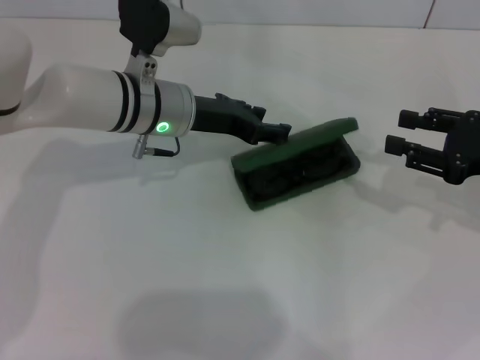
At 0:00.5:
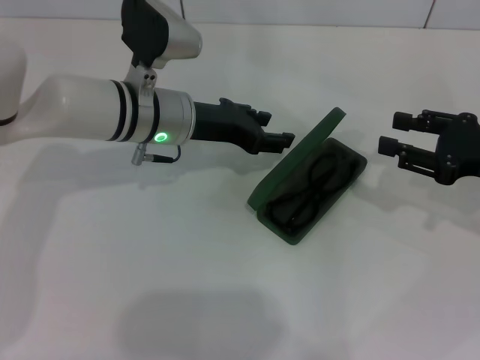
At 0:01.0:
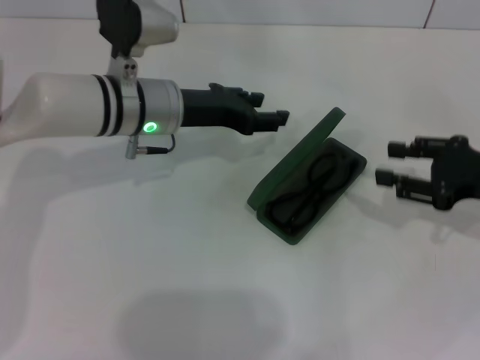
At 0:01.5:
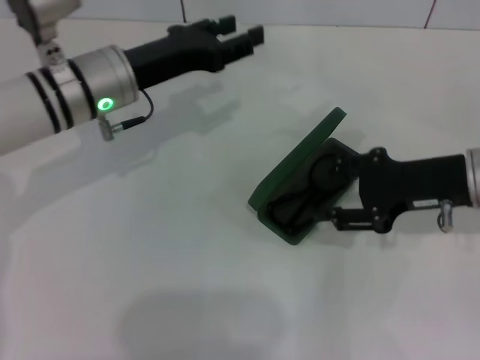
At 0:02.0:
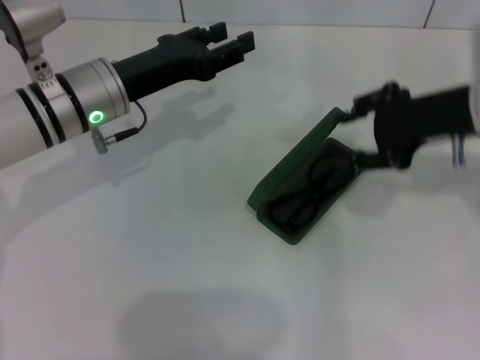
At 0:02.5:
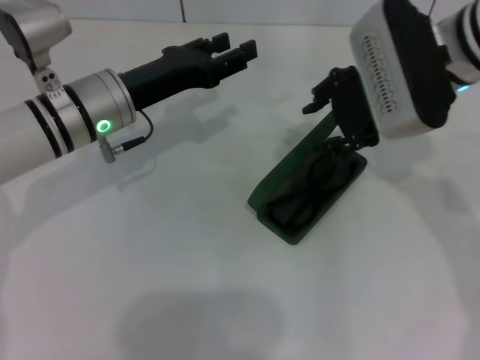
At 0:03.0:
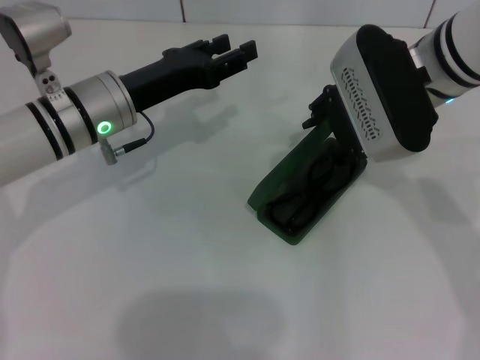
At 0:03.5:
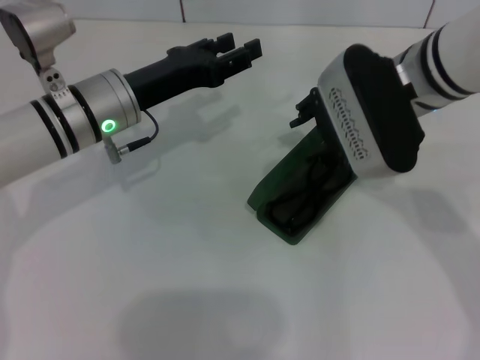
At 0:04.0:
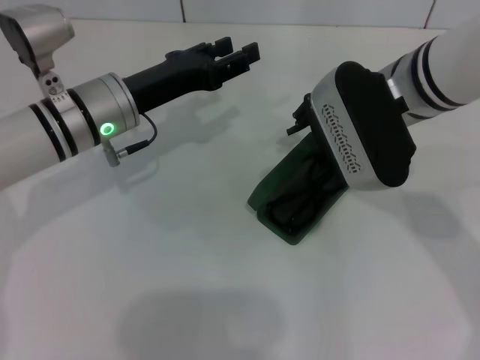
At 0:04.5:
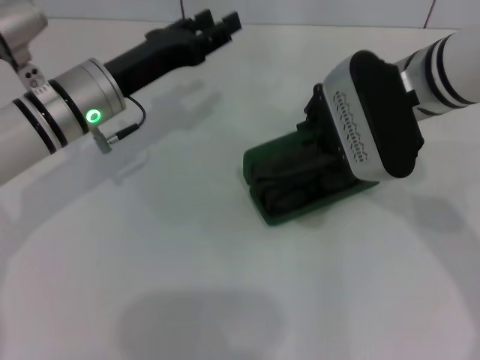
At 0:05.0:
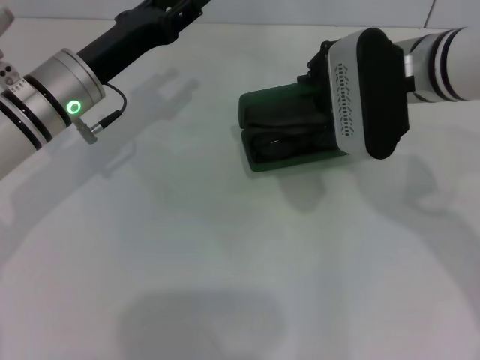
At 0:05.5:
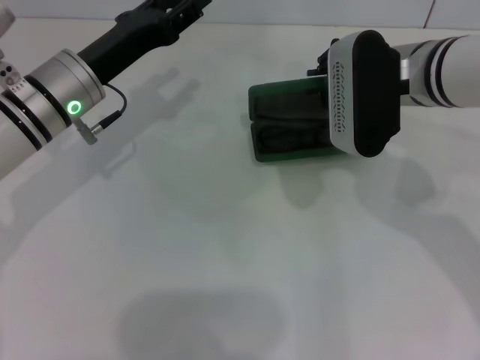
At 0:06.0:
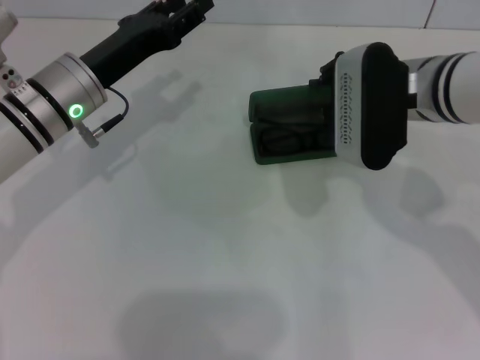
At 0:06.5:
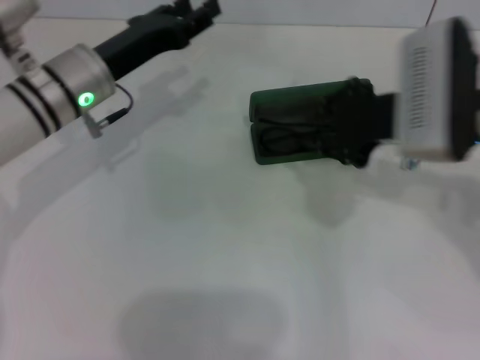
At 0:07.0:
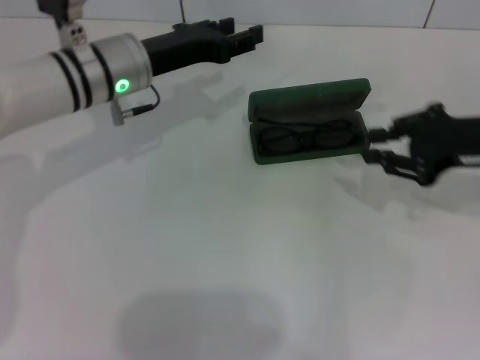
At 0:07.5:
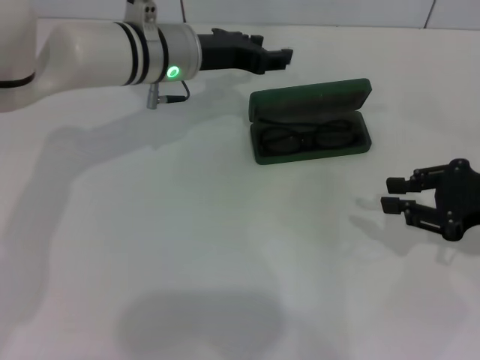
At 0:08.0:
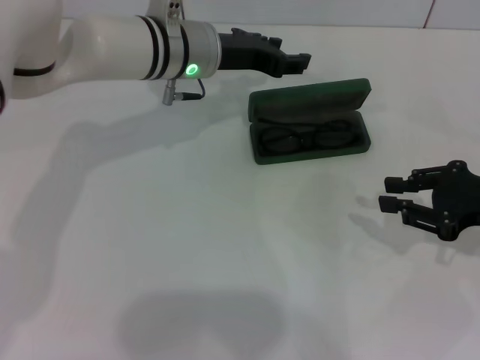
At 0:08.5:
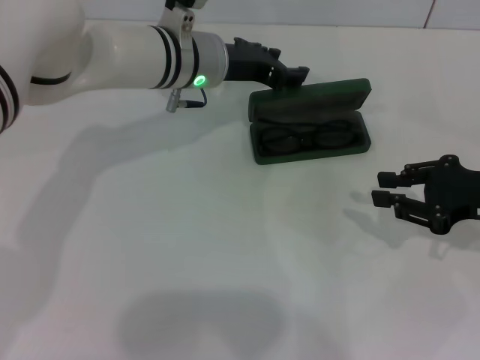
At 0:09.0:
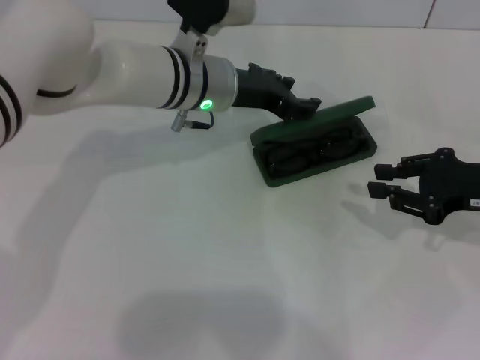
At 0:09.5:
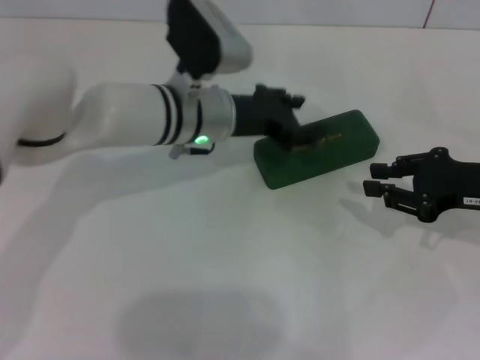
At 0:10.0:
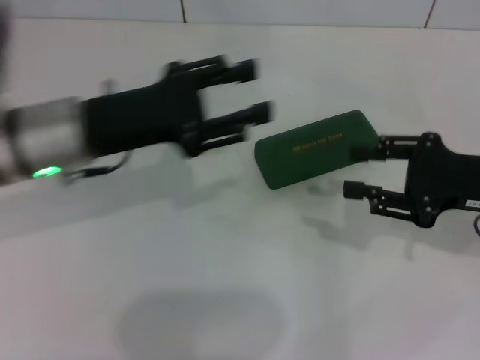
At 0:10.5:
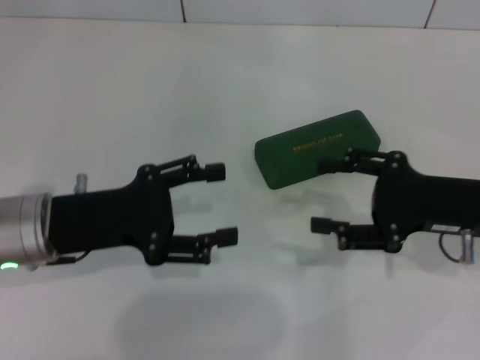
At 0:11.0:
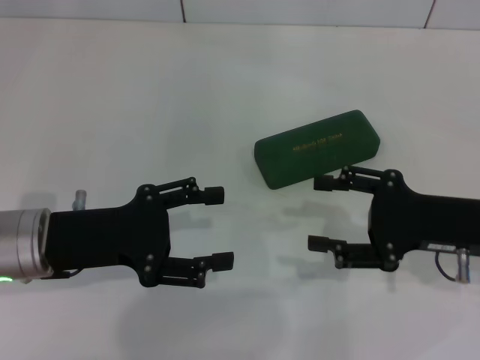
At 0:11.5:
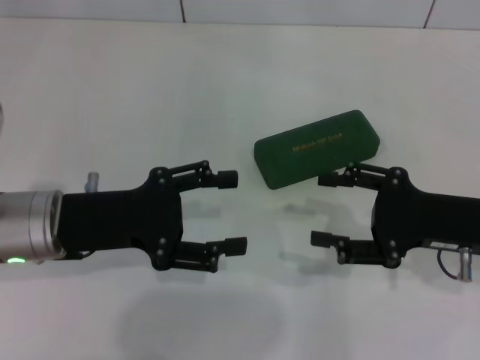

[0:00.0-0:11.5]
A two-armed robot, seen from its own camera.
Step, 0:00.0 to 0:09.0: Close the glasses case with your left hand.
0:00.0 to 0:02.0: The right gripper moves to the left and upward, roughly 10 cm. The left gripper moves to the left, roughly 5 cm.
0:02.0 to 0:04.0: The right gripper goes approximately 10 cm to the left.
0:04.0 to 0:06.0: The right gripper closes up.
0:06.0 to 0:07.5: The right gripper heads to the right and backward, covering approximately 20 cm; the left gripper heads to the right and forward, covering about 10 cm.
0:07.5 to 0:09.5: The left gripper ends up some 5 cm from where it was.
0:09.5 to 0:11.5: The right gripper moves approximately 5 cm, and opens, while the left gripper goes approximately 20 cm to the left and backward, and opens up.
